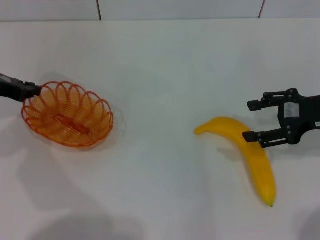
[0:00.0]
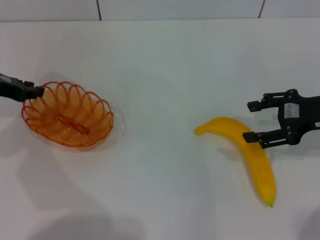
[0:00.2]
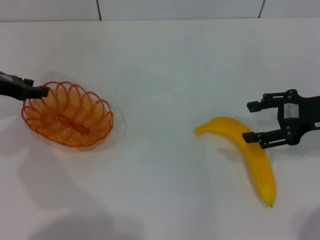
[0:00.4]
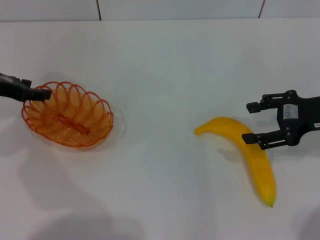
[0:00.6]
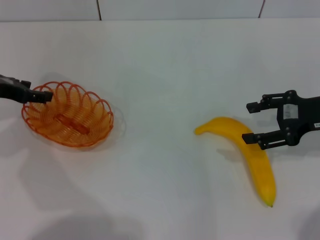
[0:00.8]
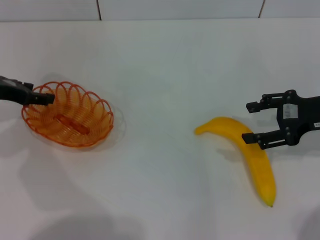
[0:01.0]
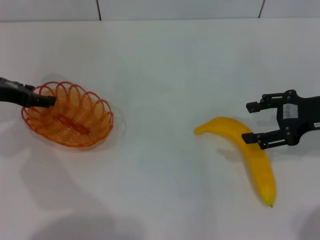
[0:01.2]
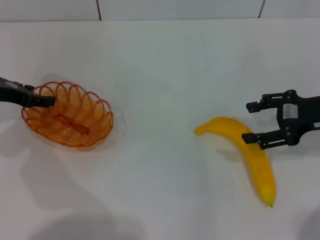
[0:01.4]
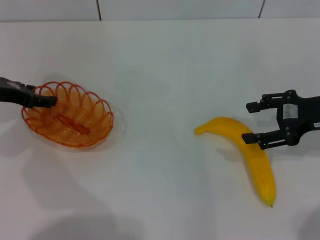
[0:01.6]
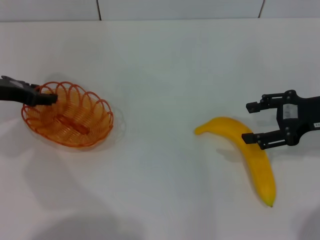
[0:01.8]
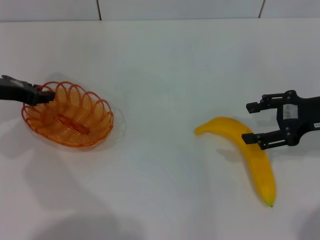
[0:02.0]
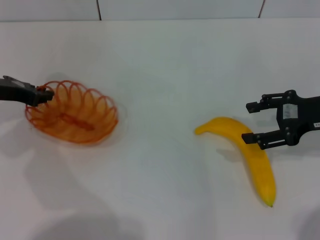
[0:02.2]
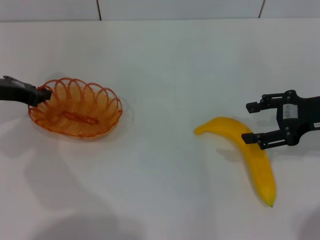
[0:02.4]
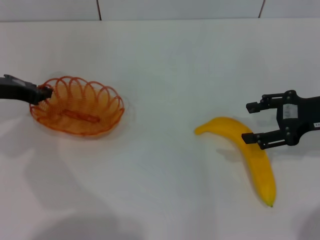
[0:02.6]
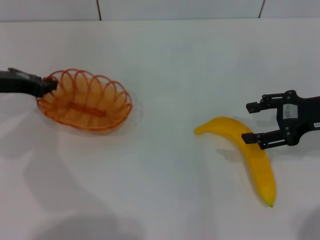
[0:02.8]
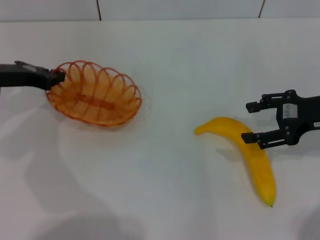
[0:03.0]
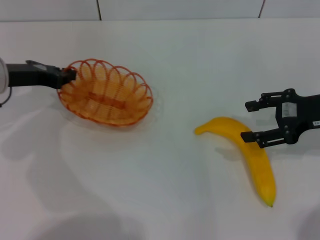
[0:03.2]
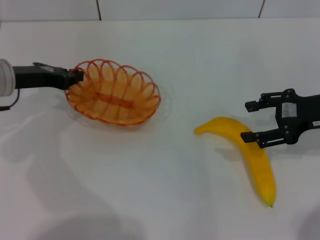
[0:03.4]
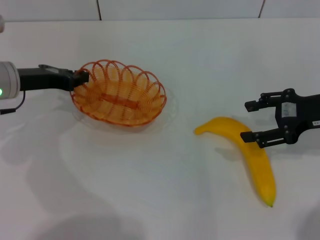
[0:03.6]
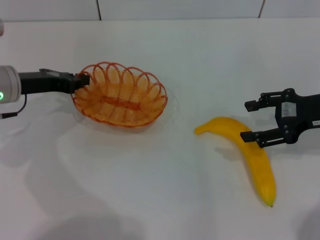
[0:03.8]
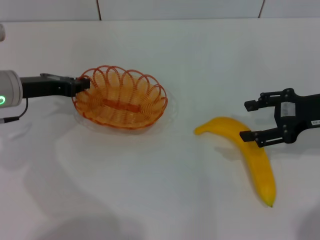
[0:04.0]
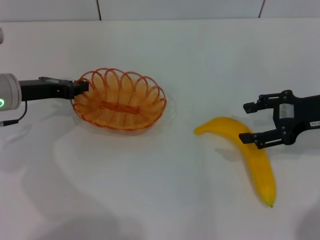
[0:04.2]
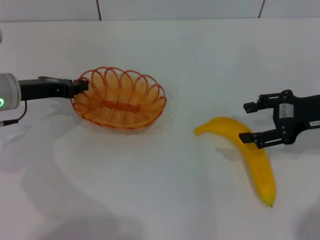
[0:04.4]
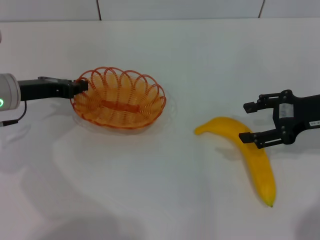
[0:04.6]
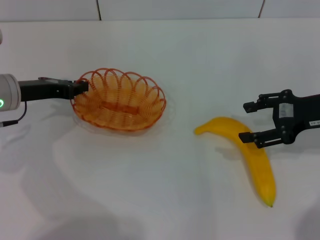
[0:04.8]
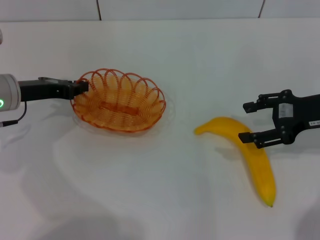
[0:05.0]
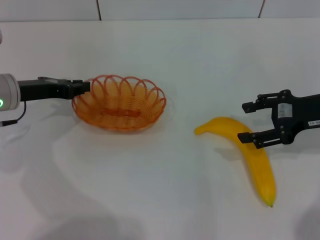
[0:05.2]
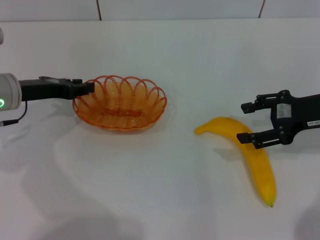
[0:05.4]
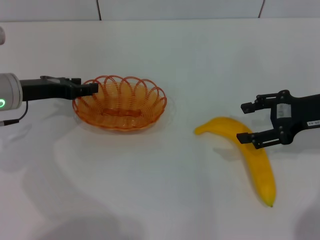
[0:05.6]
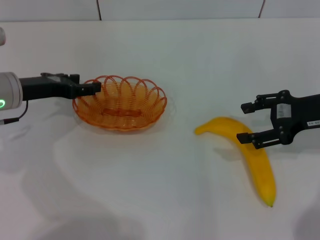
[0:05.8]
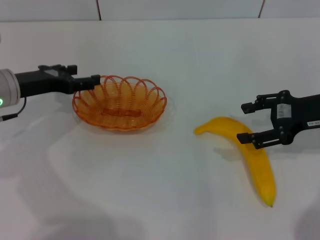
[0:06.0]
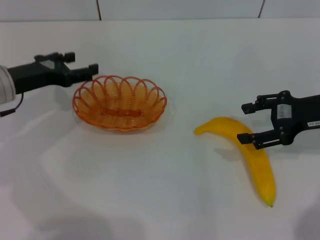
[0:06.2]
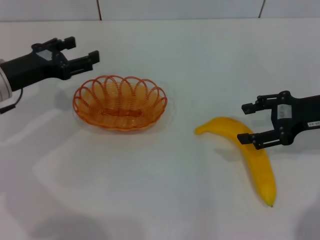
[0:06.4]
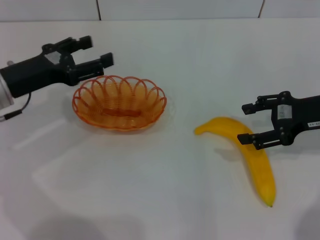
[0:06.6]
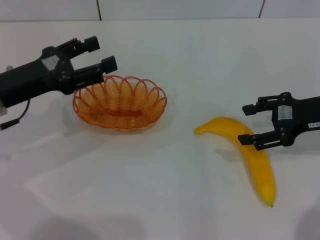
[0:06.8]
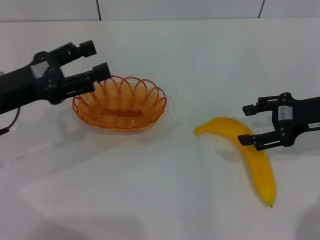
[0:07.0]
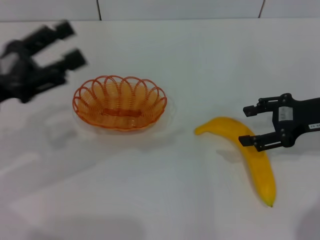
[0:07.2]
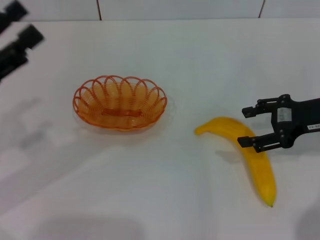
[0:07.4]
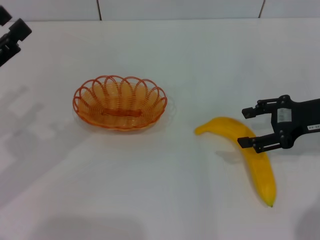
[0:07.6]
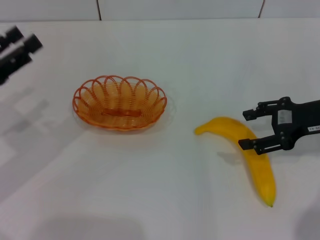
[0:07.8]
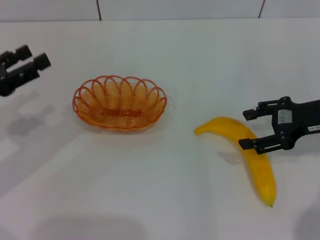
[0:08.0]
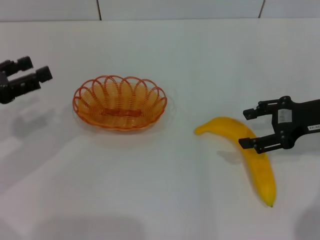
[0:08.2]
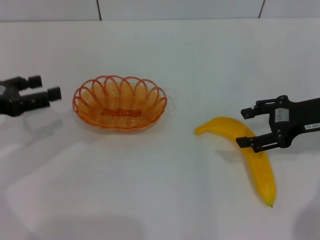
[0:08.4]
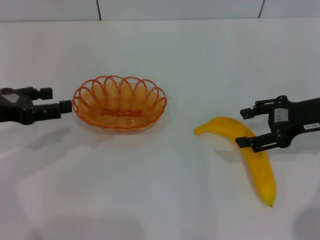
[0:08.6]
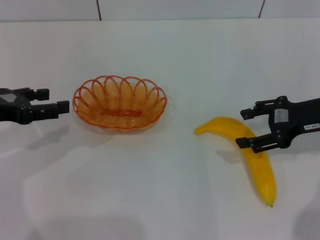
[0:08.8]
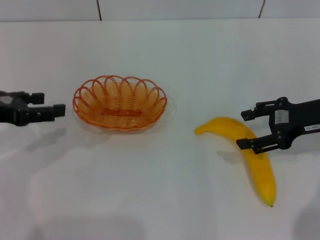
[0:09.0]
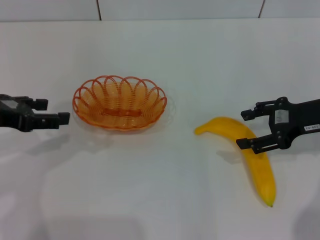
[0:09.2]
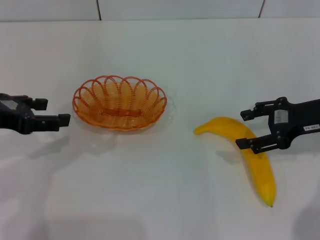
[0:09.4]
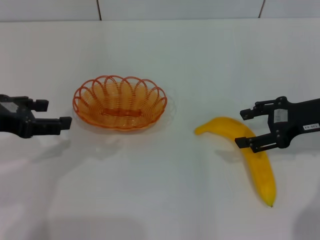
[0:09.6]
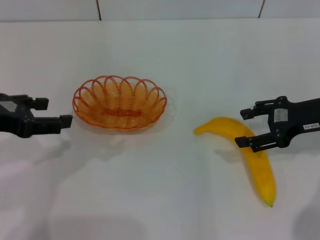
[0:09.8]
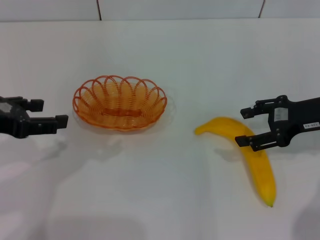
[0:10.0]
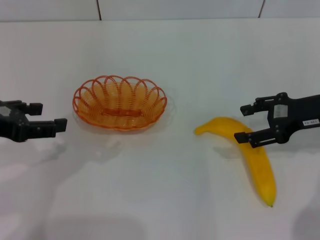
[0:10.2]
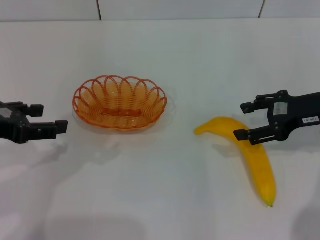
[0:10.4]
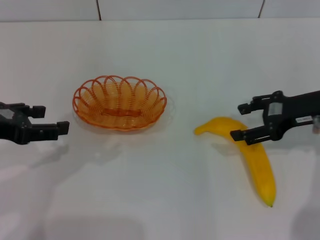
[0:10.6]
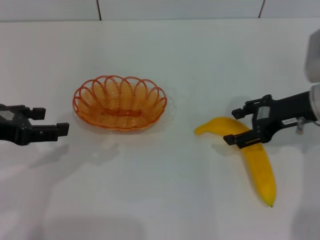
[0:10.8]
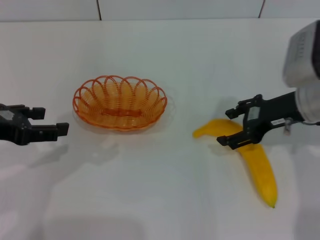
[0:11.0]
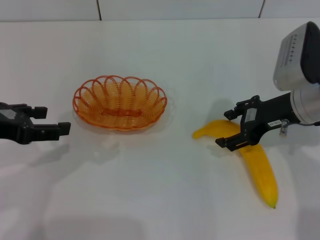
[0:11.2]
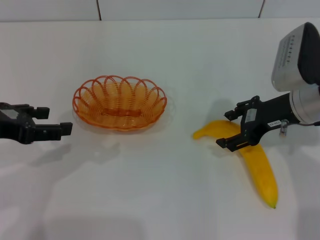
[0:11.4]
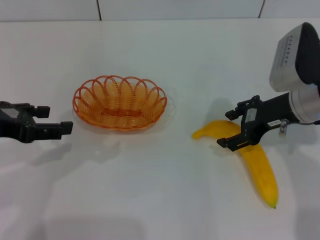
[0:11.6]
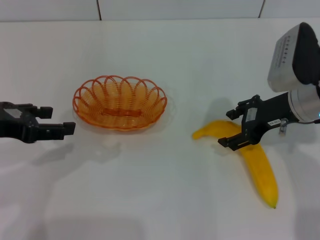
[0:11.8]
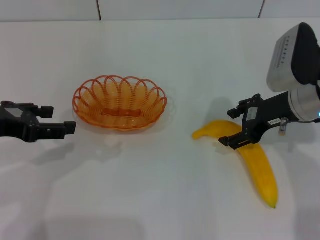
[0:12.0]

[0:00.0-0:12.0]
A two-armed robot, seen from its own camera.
Step, 0:00.0 to 0:02.8: Pick up the basket with the left gripper.
Step, 0:03.0 to 0:06.0: Place the basket in the center of view with the left gripper.
0:00.0 to 0:01.6: The left gripper opens its fingers.
0:01.6 to 0:03.0: The left gripper closes.
0:03.0 to 0:04.4: The grippers move only a little.
0:04.4 to 0:06.0: The left gripper opens.
0:06.0 to 0:07.6: The left gripper travels backward and to the left by some 10 cm.
0:09.0 to 0:10.4: The left gripper moves roughly 5 cm.
0:10.4 to 0:12.0: The right gripper travels to the left by about 5 cm.

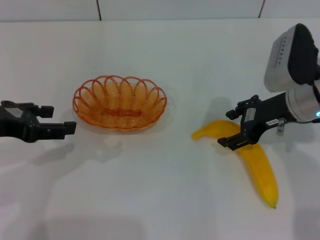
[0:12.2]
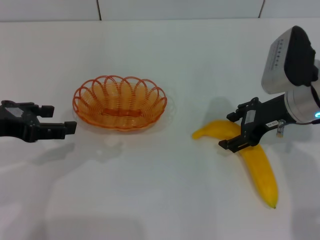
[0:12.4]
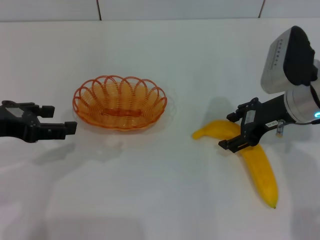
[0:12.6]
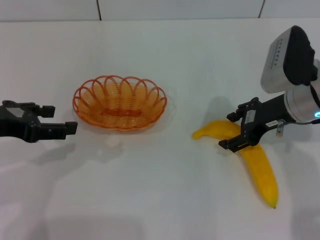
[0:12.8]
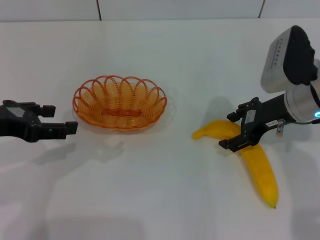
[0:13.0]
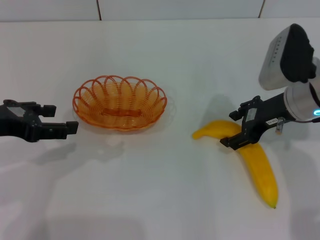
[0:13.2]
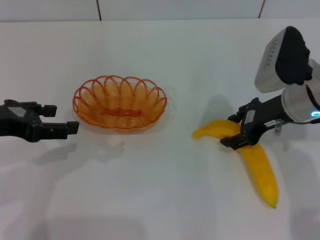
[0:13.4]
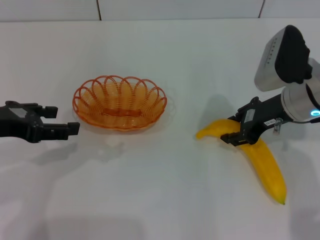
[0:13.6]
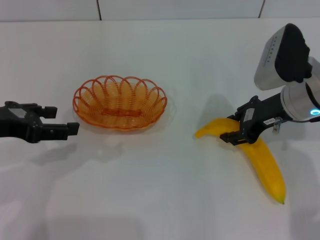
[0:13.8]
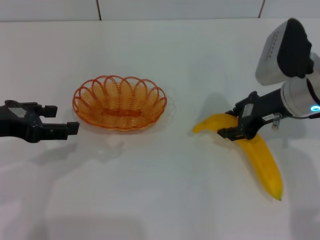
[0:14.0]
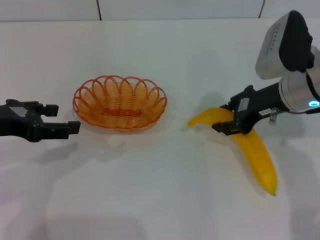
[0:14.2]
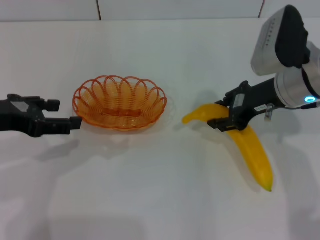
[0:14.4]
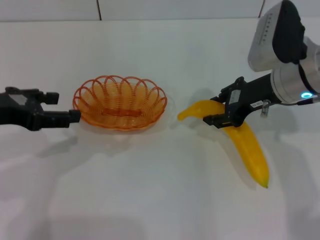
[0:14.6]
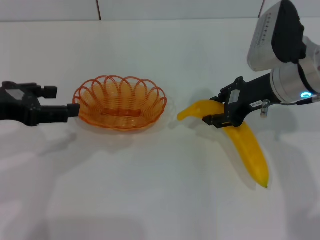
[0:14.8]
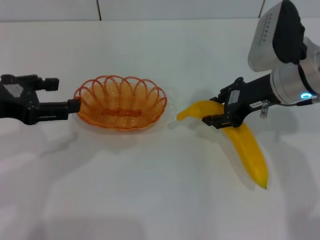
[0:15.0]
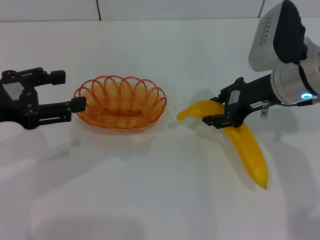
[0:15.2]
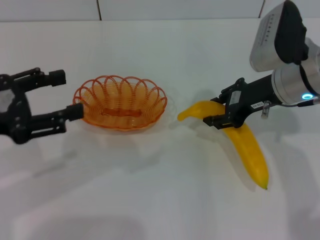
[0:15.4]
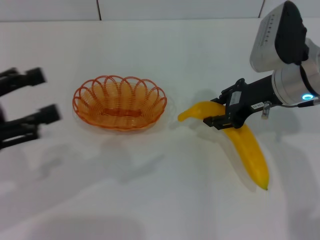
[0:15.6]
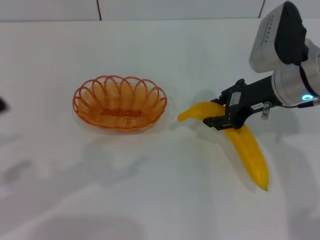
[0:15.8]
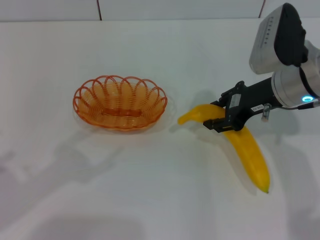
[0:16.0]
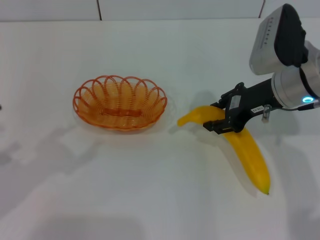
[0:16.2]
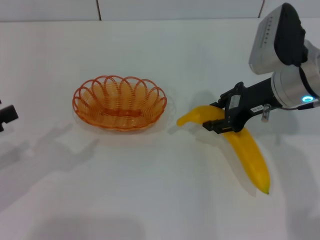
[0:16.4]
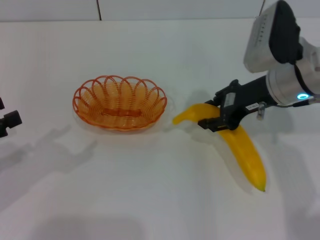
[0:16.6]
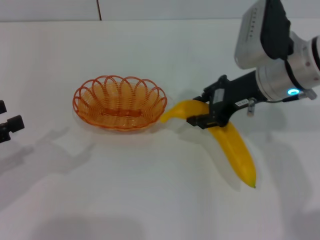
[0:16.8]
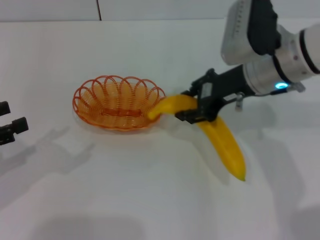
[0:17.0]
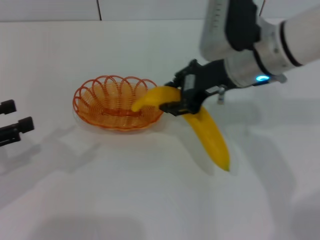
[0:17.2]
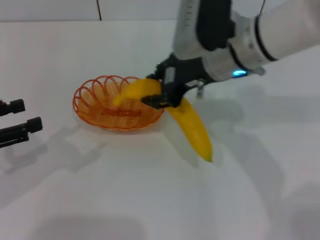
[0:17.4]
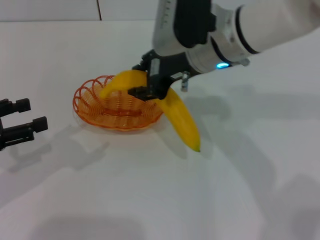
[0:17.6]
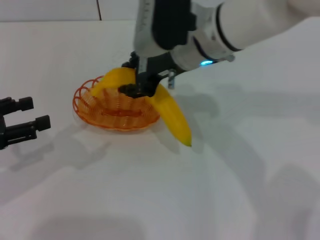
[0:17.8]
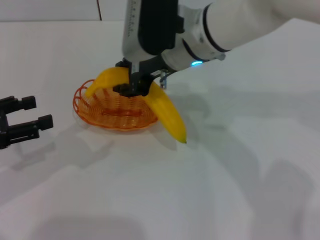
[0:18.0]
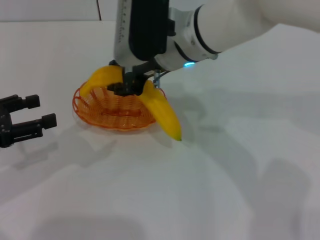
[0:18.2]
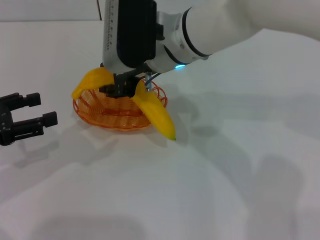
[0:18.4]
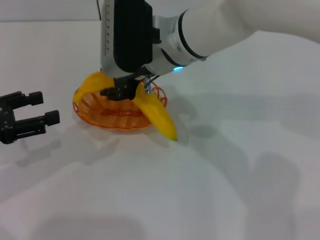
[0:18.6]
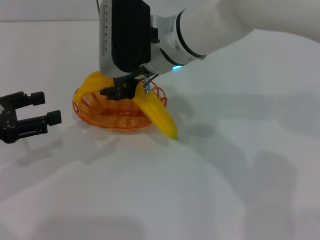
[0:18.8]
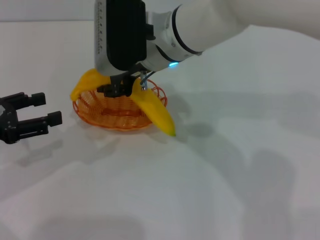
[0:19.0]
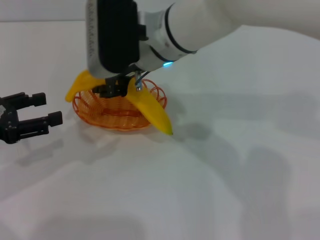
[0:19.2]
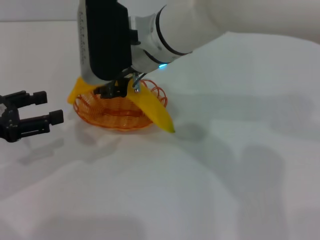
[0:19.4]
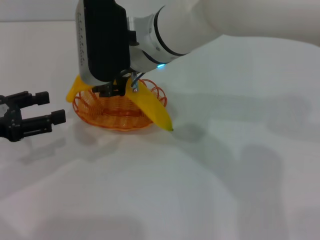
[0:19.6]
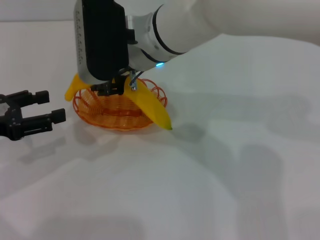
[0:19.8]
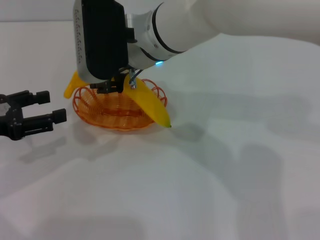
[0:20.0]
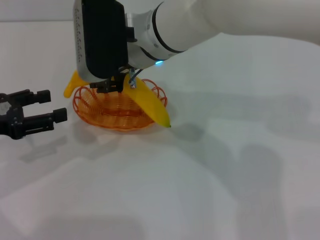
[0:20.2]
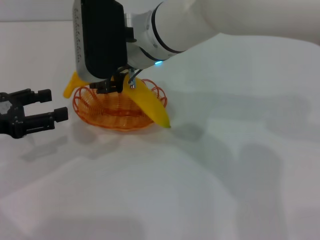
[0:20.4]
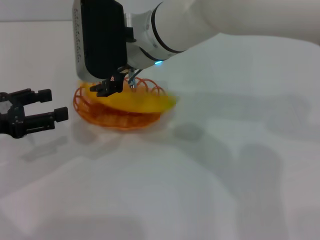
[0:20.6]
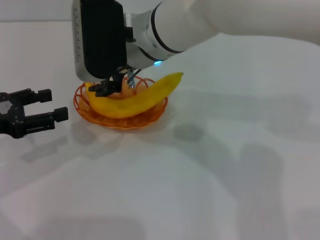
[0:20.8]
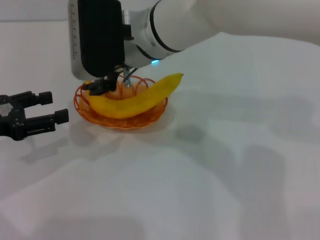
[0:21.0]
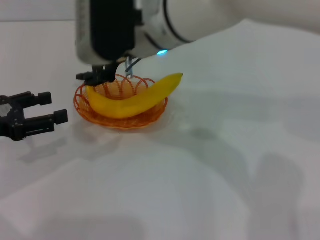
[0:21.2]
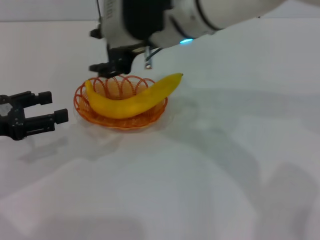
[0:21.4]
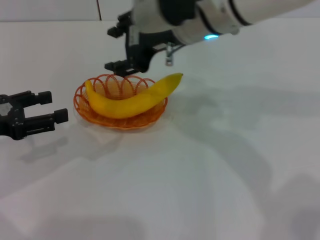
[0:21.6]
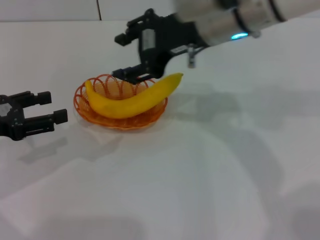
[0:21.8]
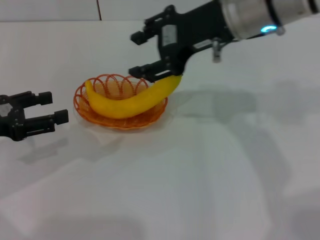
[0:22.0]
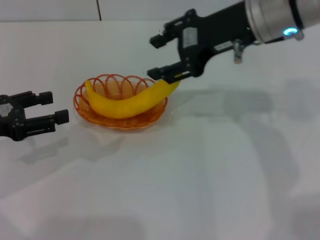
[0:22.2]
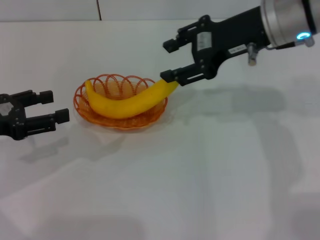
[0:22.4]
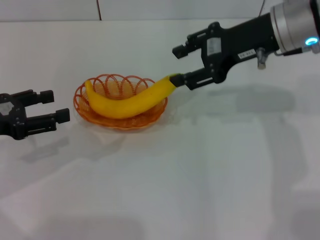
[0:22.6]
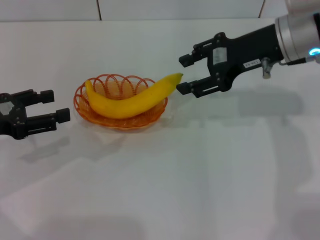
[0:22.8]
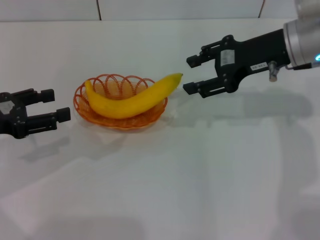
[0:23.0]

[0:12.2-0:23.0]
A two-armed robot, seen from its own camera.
Step, 0:12.2 to 0:14.2: Pick up the banana with the right gripper.
Step, 0:14.4 to 0:21.0: Place the banana into the basket with the right gripper.
0:12.2 to 0:13.8: The right gripper closes.
0:15.2 to 0:16.8: The left gripper heads to the left and downward, covering roughly 10 cm.
0:16.8 to 0:18.4: The right gripper shifts some 15 cm to the left.
0:18.4 to 0:20.0: There are only small adjustments of the grippers.
0:20.0 to 0:21.4: The right gripper changes place by roughly 5 cm.
0:21.4 to 0:23.0: The right gripper is displaced to the right by roughly 15 cm.
